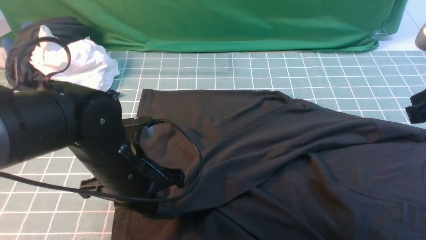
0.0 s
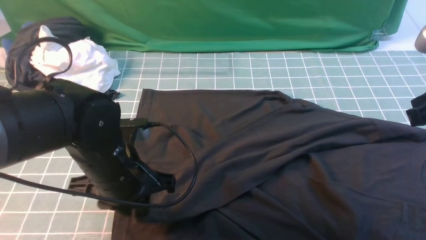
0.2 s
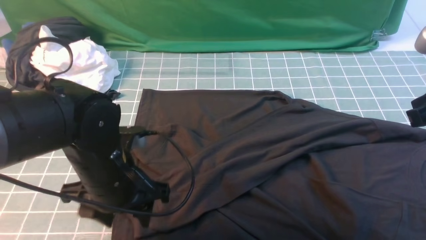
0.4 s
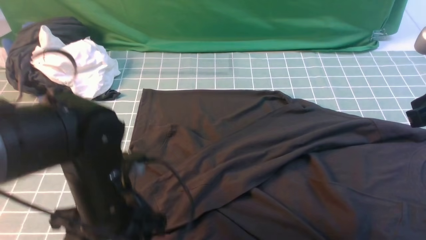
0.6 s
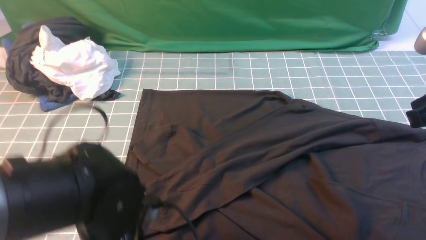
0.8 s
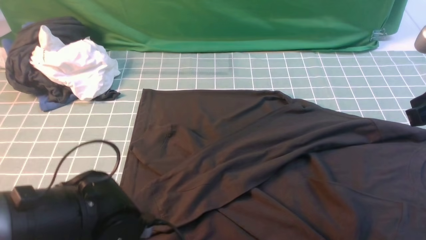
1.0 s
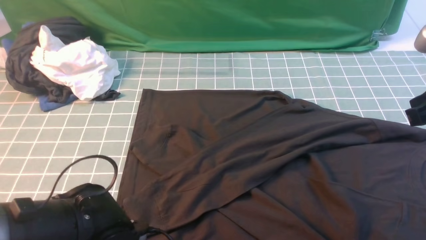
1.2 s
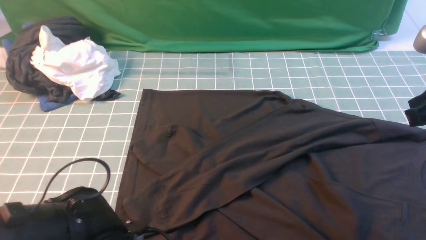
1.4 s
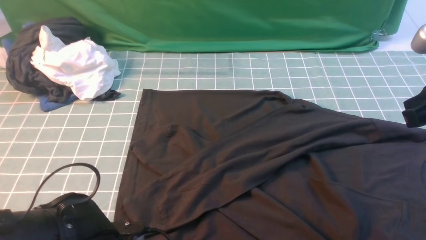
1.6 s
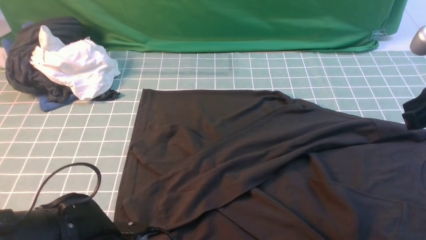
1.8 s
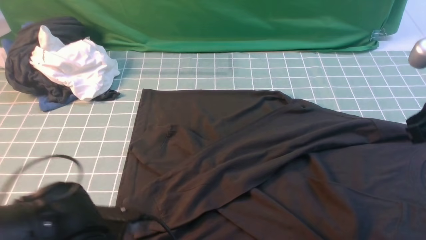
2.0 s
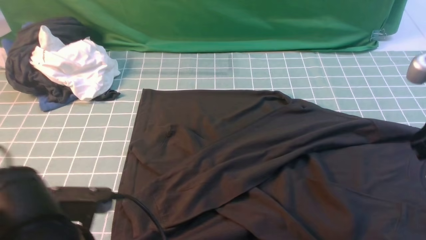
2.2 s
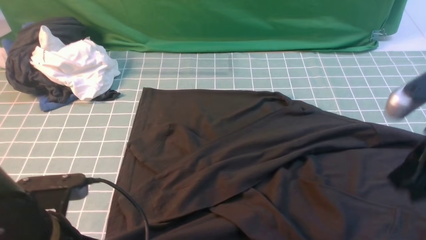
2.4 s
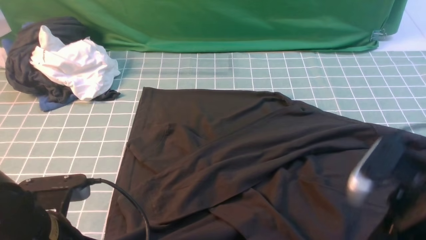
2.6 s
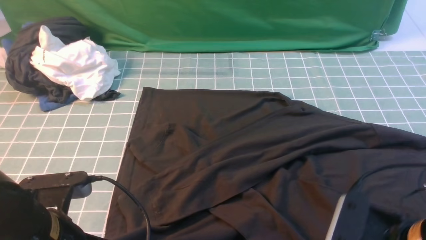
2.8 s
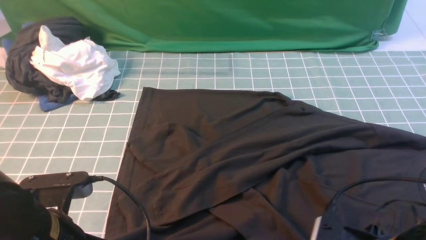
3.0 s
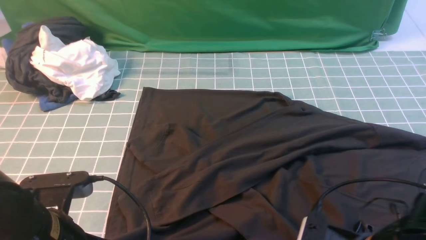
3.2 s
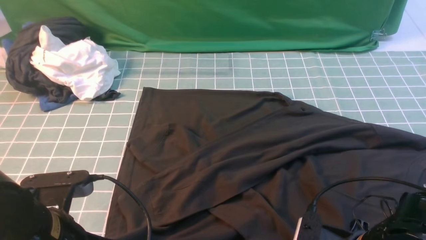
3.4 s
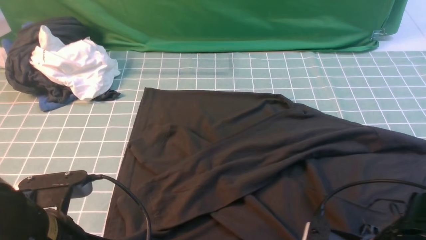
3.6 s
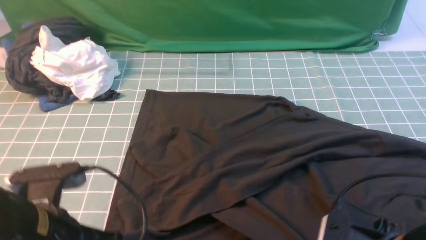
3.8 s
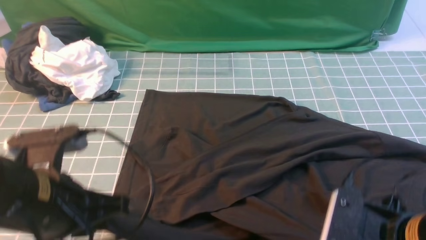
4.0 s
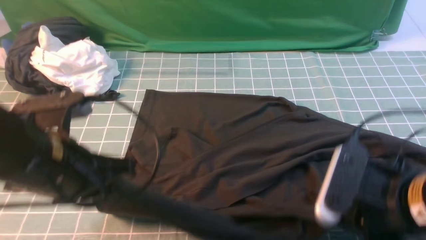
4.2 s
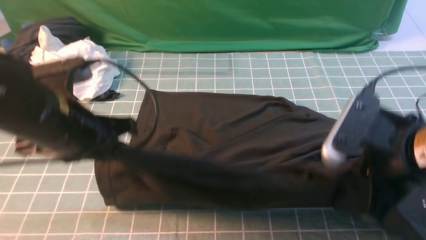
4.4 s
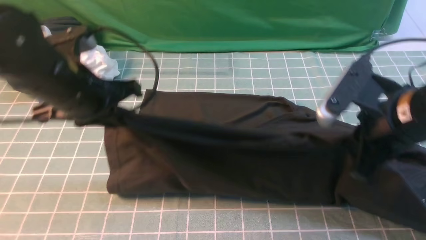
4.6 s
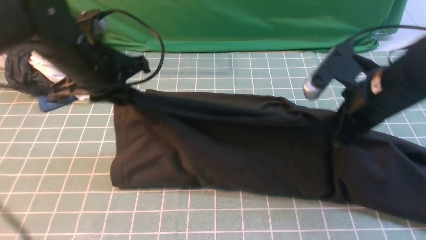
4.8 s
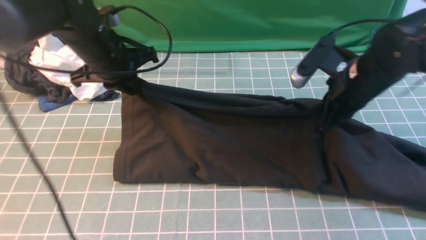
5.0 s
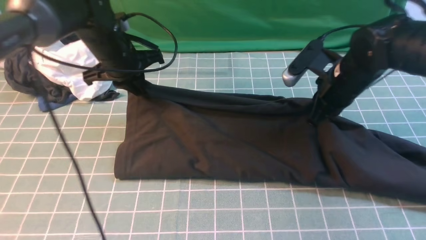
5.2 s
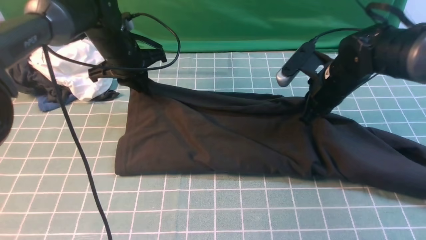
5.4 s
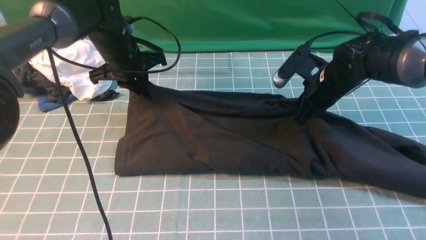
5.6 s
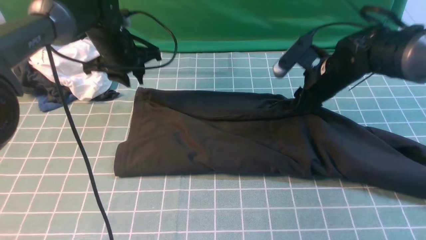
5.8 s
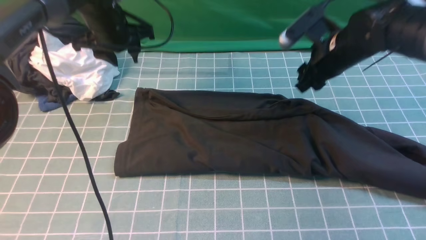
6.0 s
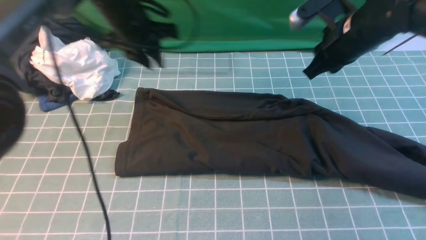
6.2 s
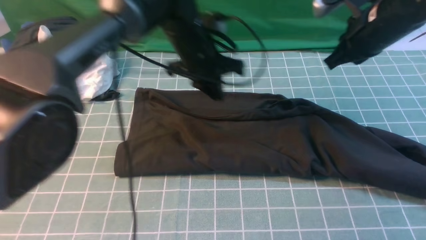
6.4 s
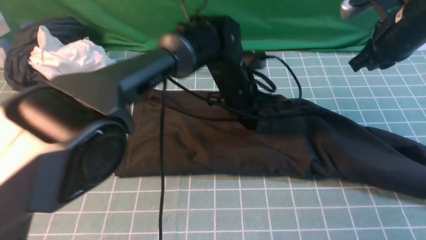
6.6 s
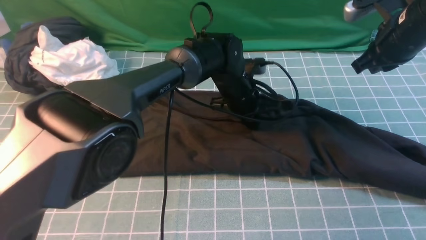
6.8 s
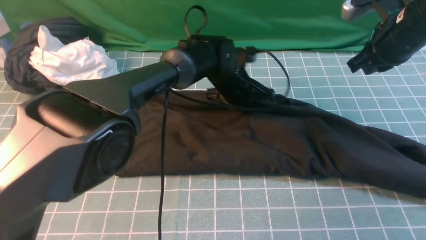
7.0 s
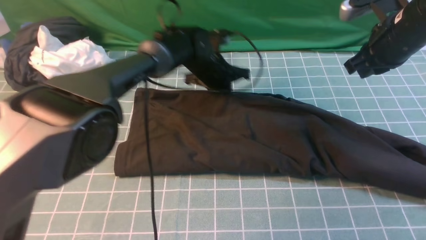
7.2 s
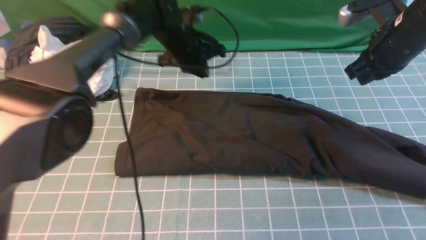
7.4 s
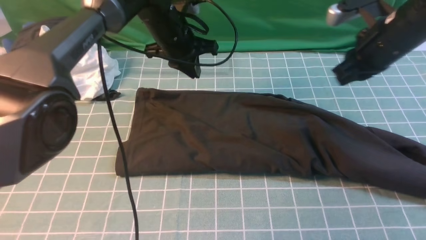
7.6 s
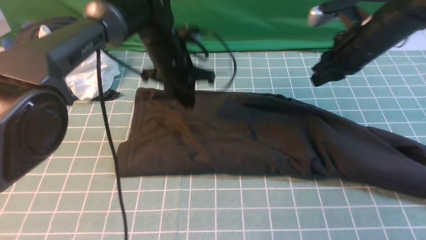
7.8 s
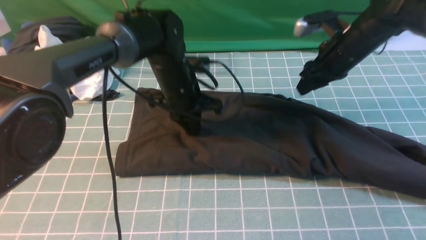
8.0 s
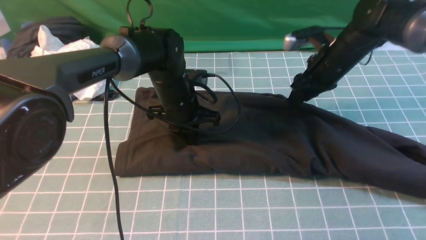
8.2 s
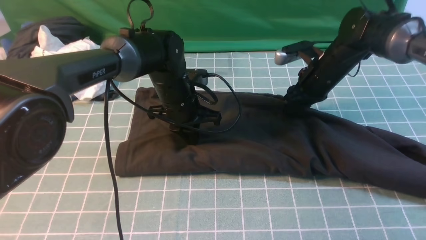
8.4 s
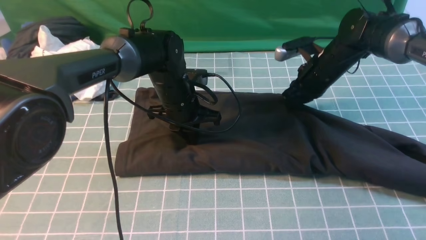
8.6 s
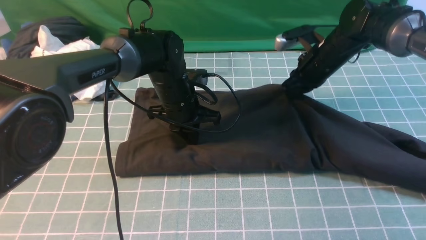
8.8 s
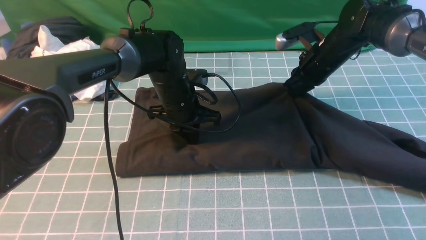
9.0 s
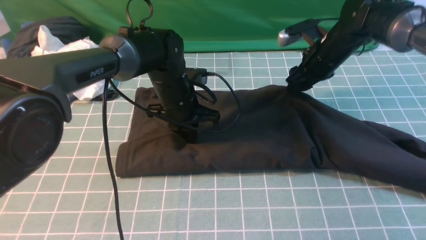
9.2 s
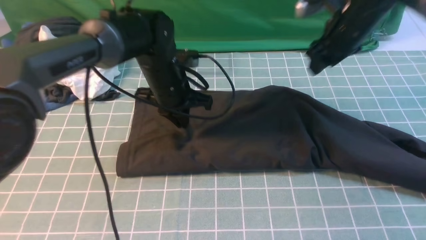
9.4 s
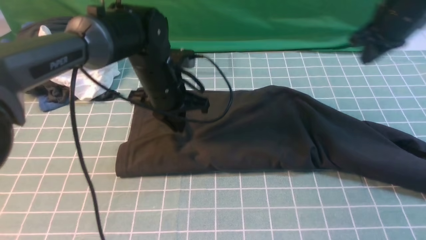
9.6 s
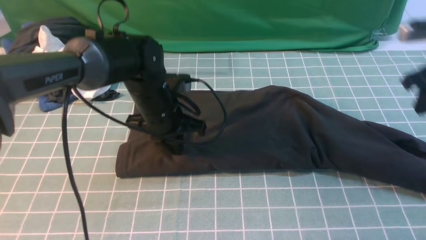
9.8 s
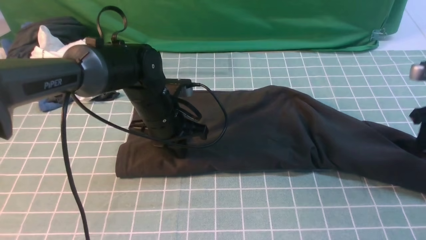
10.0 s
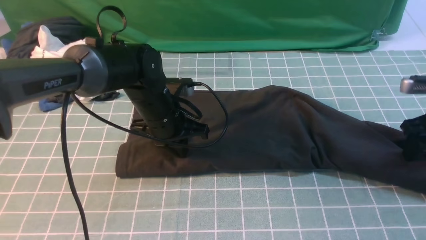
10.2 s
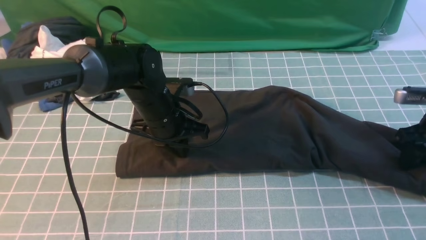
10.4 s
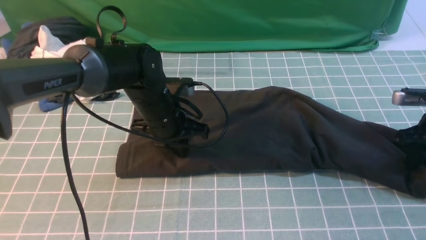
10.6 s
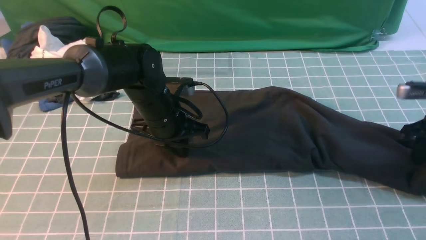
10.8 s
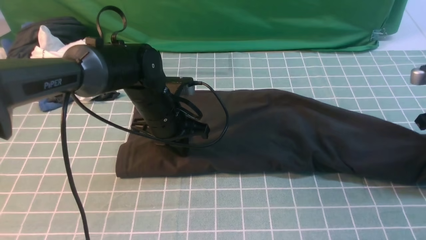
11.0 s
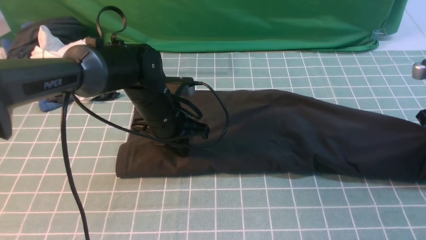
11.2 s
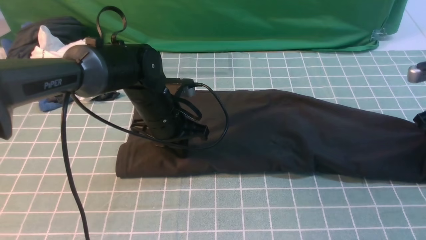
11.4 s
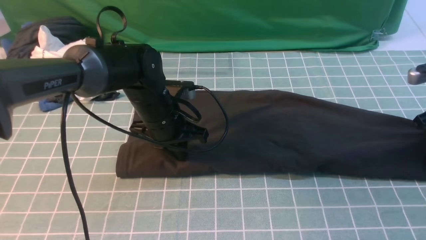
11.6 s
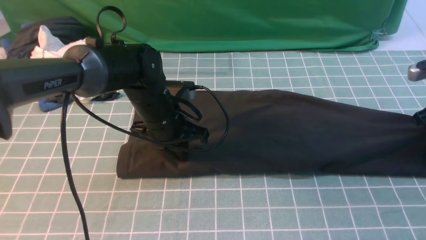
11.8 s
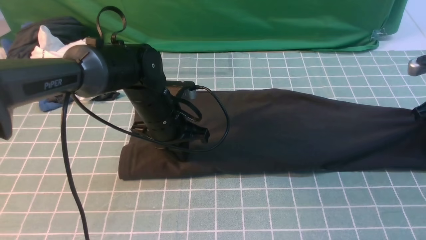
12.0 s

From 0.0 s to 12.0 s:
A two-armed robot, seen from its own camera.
Step, from 0.6 s to 4.0 s: use both arms simultaneously to clamp the lower edge of the clothing fabric.
Step, from 4.2 s to 7.6 s: use both arms to drag the lower edge of the fabric forward and fold it over the upper edge.
From 0.0 s to 1.6 s: The left gripper shifts approximately 15 cm backward and downward, and opens and closes again.
From 1.6 s to 3.0 s: The right gripper goes roughly 20 cm downward, backward and to the left, and opens its fingers, while the left gripper heads upward and to the left, covering roughly 10 cm, and closes its fingers.
From 3.0 s to 4.4 s: The right gripper goes some 10 cm upward and forward, and closes up, while the left gripper goes roughly 15 cm forward and upward.
From 4.4 s to 6.0 s: The two grippers go some 20 cm forward. The right gripper opens its fingers. The left gripper opens up.
From 6.0 s to 7.6 s: The left gripper heads to the right, covering approximately 10 cm, and closes its fingers. The right gripper closes its fingers.
From 7.6 s to 9.0 s: The right gripper travels downward and forward by roughly 10 cm. Meanwhile the left gripper moves downward and backward, some 10 cm.
From 9.0 s to 10.4 s: The left gripper ends up approximately 5 cm from where it was, while the right gripper is displaced to the right and backward by about 20 cm.

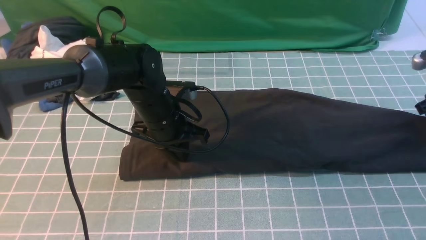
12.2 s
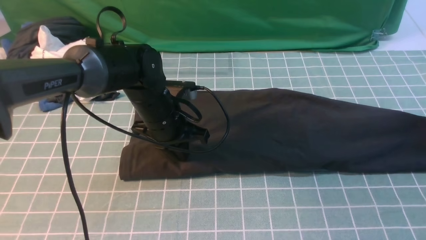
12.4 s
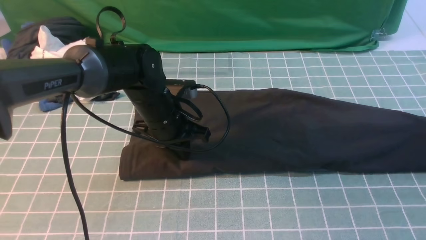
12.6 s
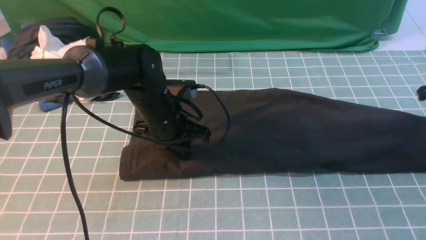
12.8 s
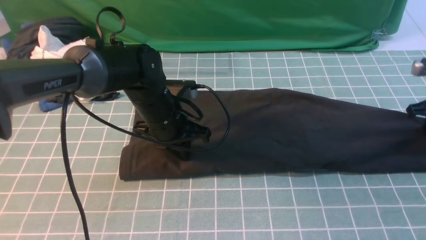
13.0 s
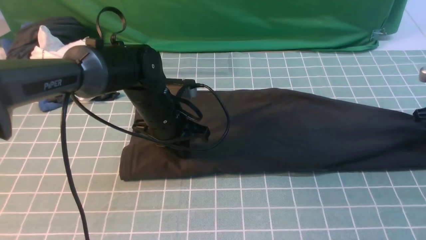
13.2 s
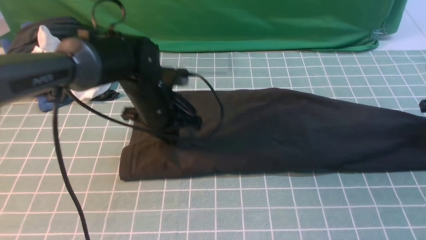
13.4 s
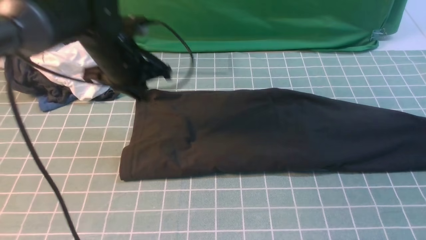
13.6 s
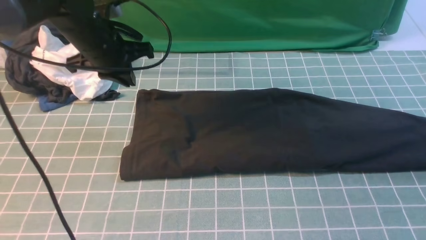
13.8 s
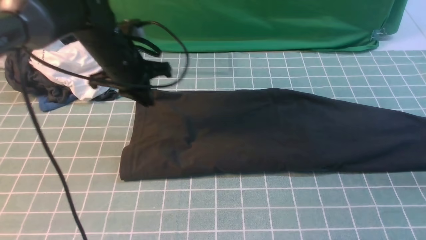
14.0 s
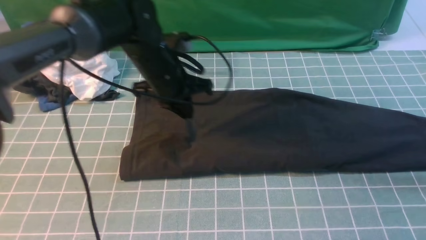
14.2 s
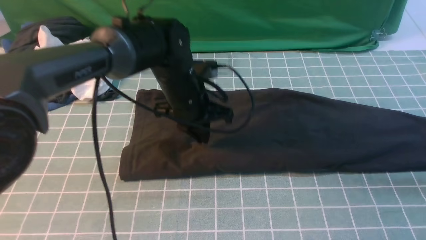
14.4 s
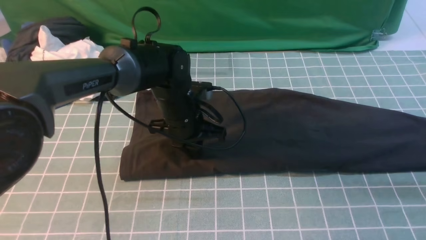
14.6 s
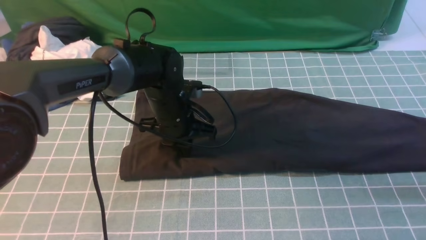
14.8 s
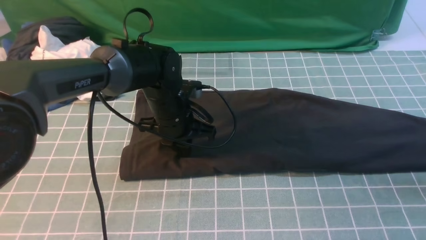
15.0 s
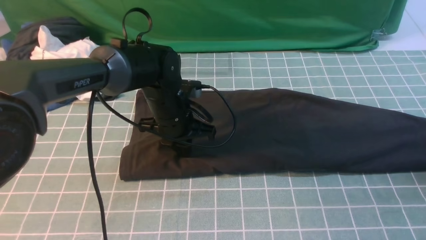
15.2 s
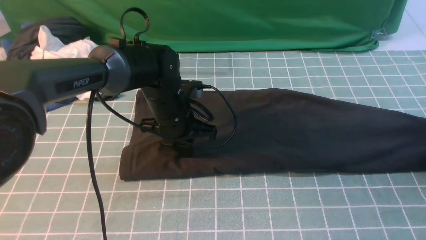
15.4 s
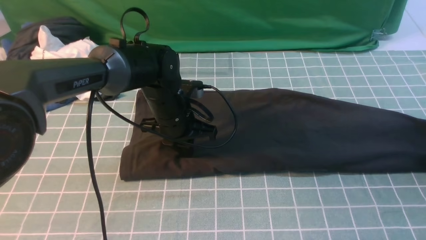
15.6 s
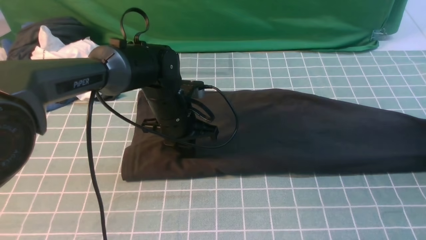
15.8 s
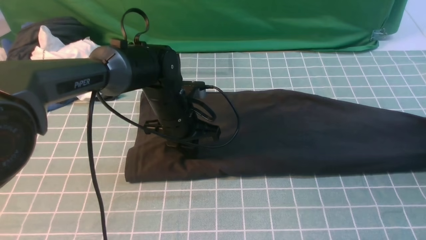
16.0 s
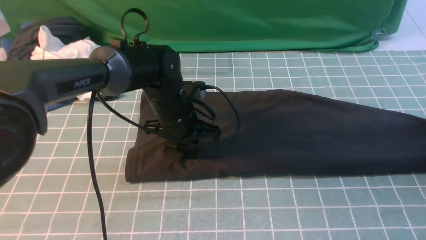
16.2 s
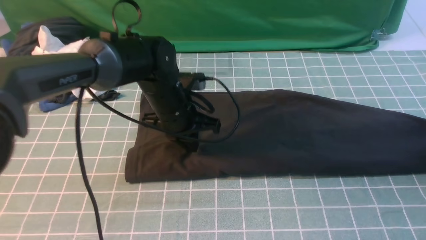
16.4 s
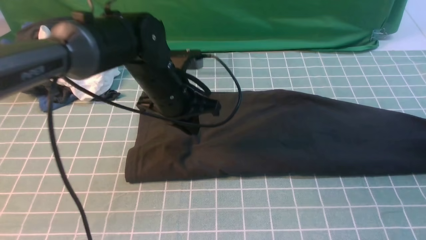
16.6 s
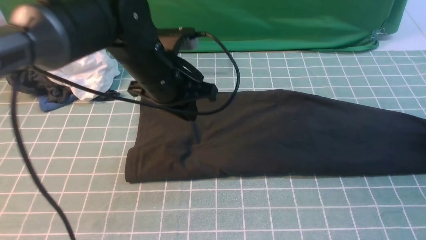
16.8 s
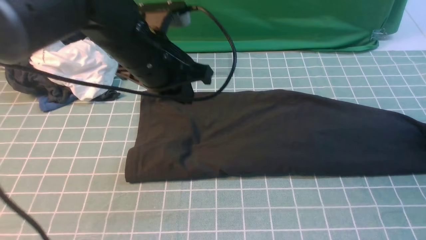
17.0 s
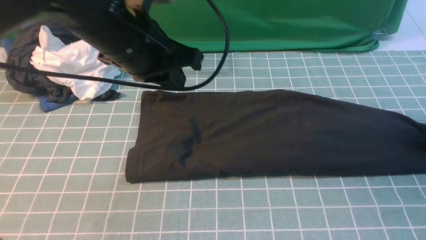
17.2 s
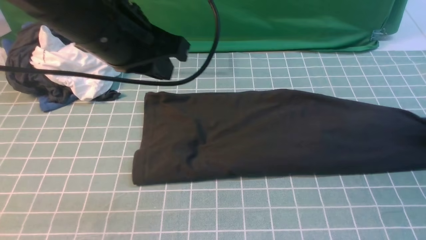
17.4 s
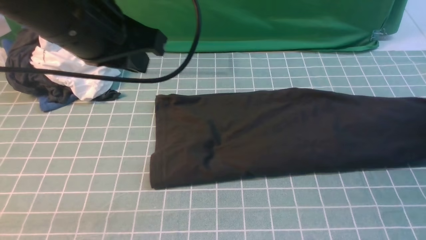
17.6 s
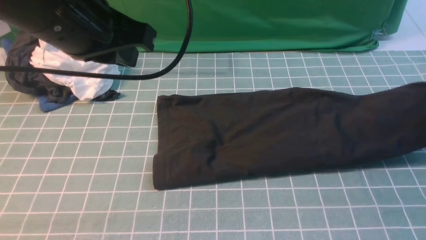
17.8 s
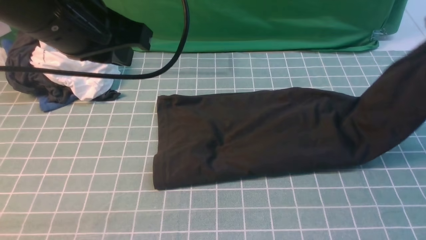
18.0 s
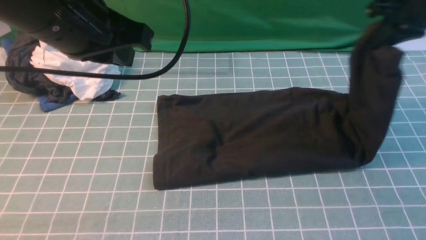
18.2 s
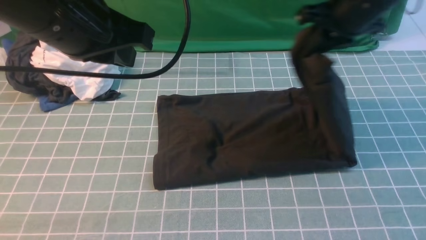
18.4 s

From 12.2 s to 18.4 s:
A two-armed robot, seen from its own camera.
Step, from 12.2 s to 17.6 s: use the right arm to clamp the right edge of the fabric.
From 12.2 s to 13.8 s: The right gripper goes about 5 cm upward, and closes its fingers. The left gripper is displaced upward and to the left by some 10 cm.
From 13.8 s to 15.4 s: The right gripper shifts about 10 cm downward, and opens up. The left gripper moves downward and to the right, some 15 cm.
From 15.4 s to 16.8 s: The left gripper travels upward by approximately 10 cm; the right gripper closes and opens again.
From 16.8 s to 18.4 s: The right gripper is displaced to the left and upward by about 35 cm, and closes its fingers. The left gripper goes about 15 cm upward, backward and to the left.
